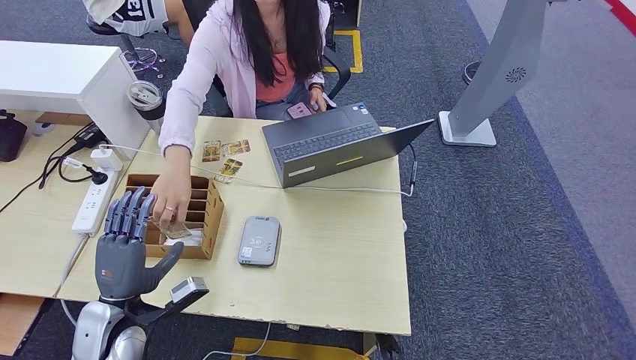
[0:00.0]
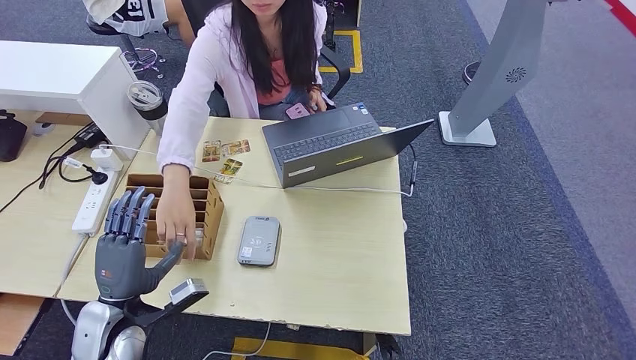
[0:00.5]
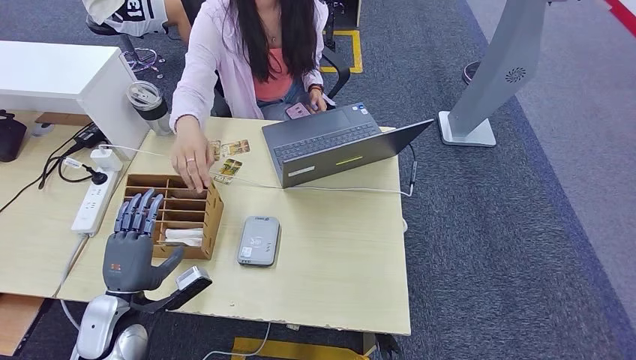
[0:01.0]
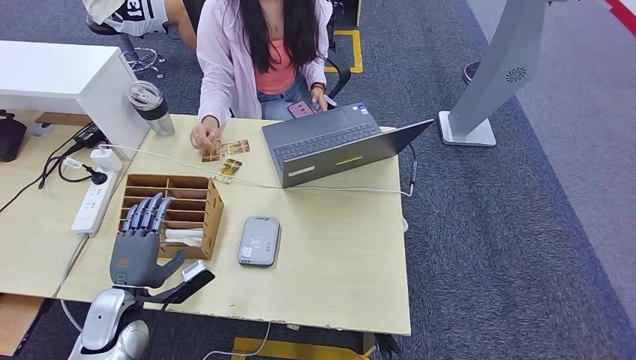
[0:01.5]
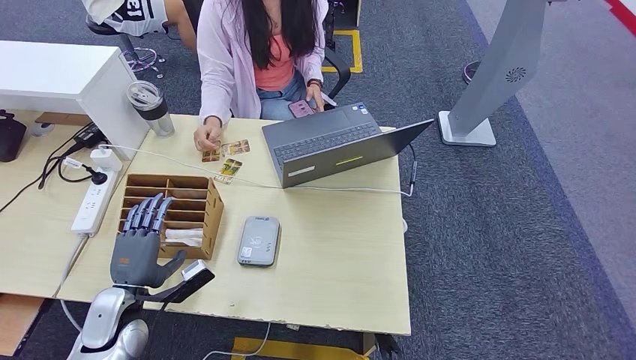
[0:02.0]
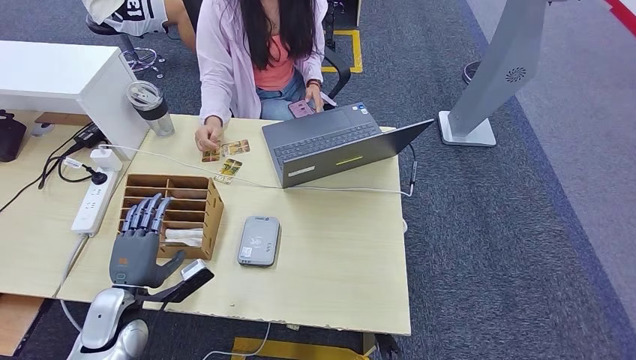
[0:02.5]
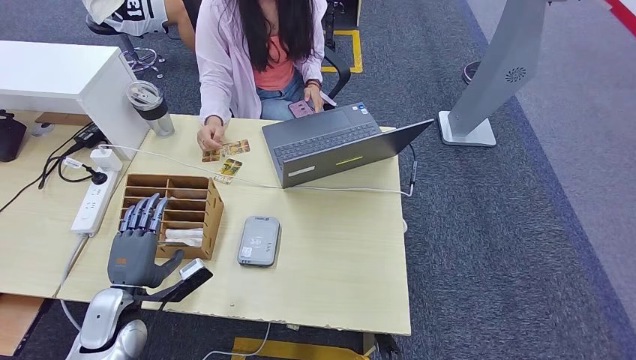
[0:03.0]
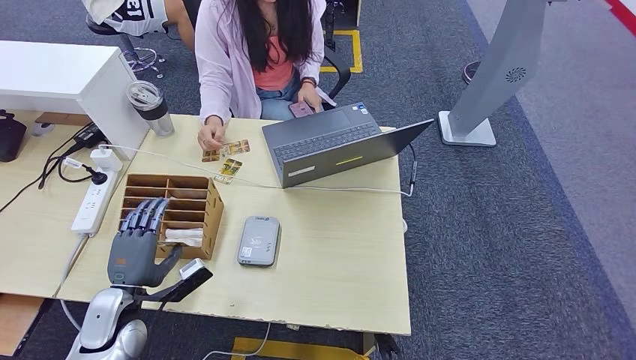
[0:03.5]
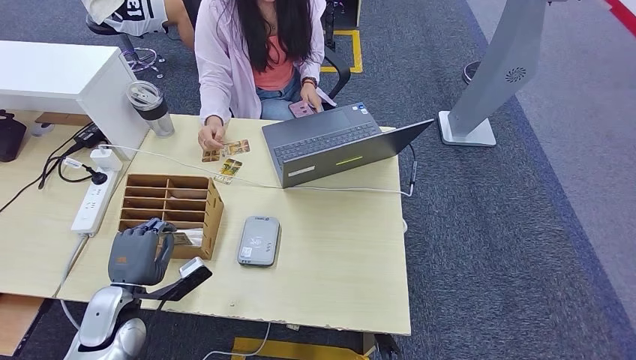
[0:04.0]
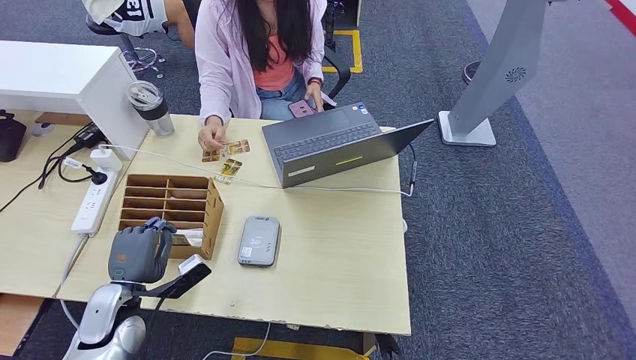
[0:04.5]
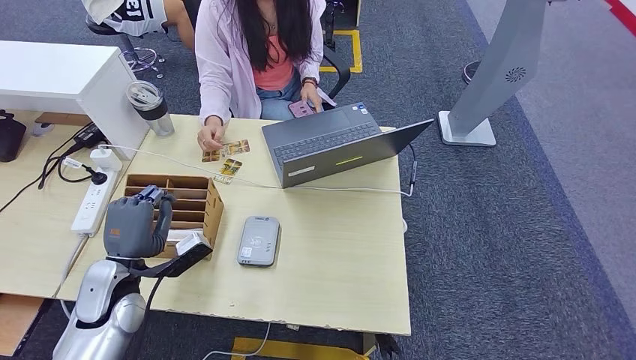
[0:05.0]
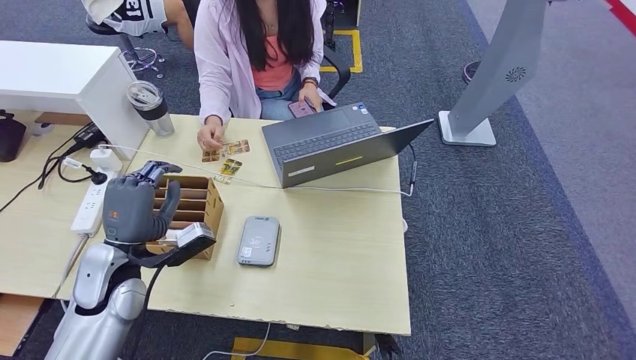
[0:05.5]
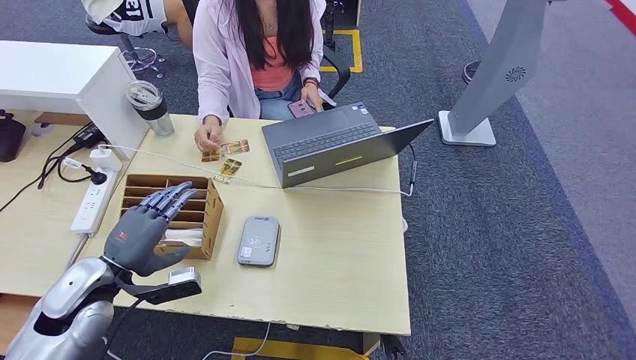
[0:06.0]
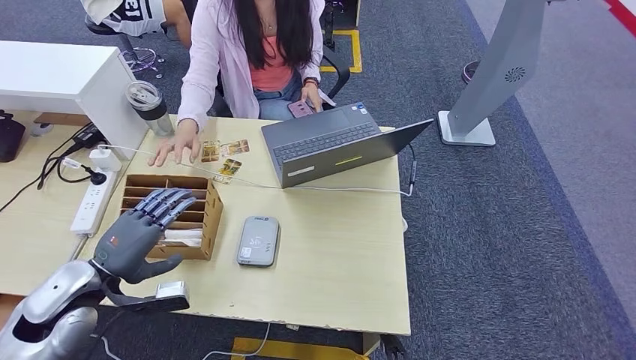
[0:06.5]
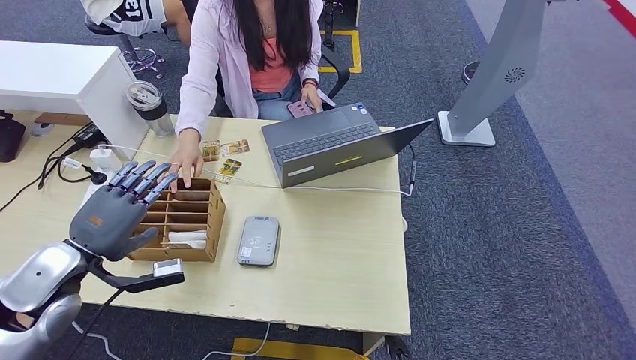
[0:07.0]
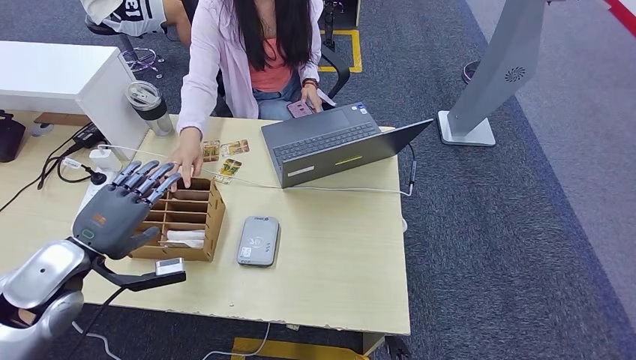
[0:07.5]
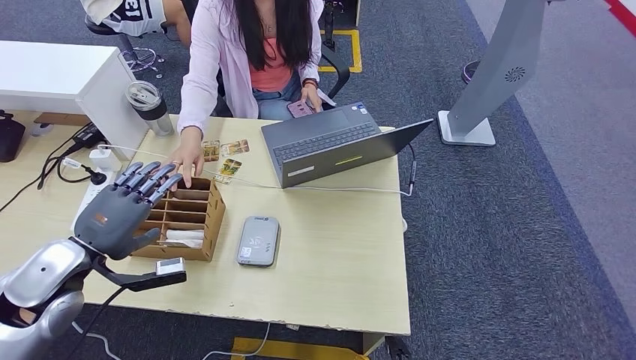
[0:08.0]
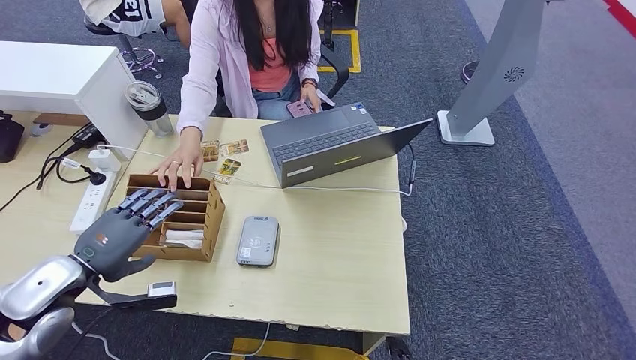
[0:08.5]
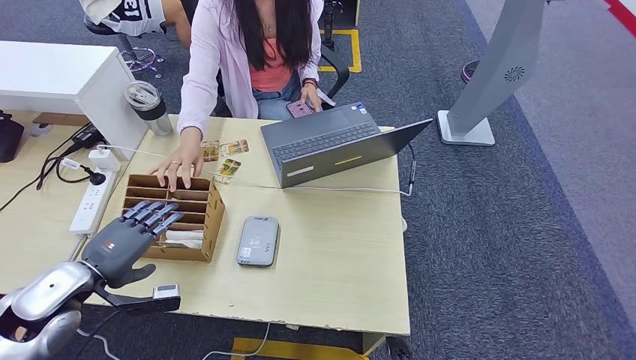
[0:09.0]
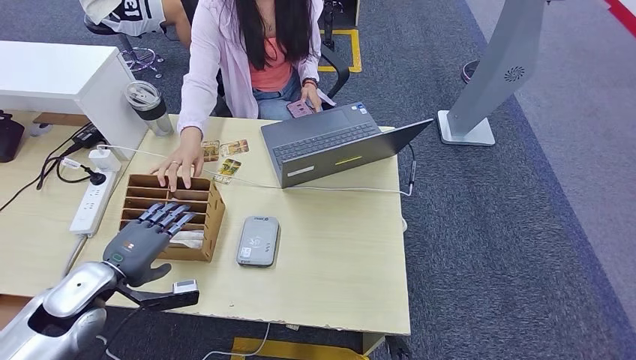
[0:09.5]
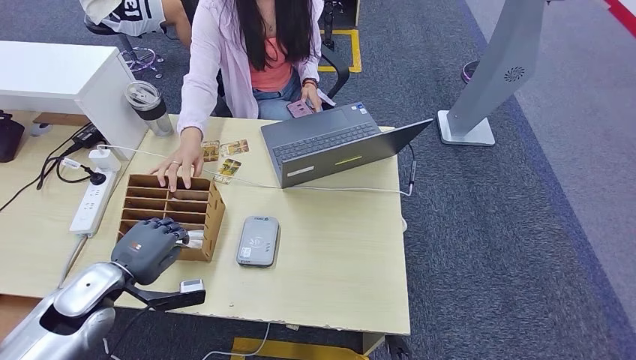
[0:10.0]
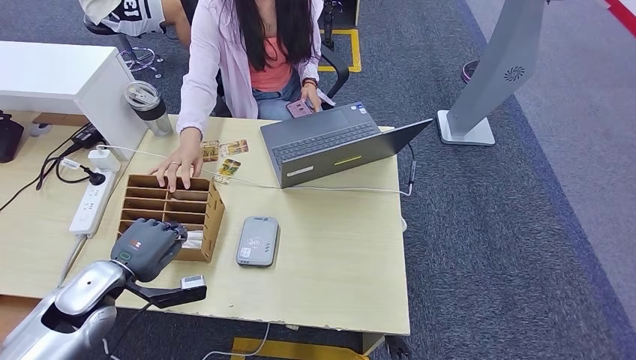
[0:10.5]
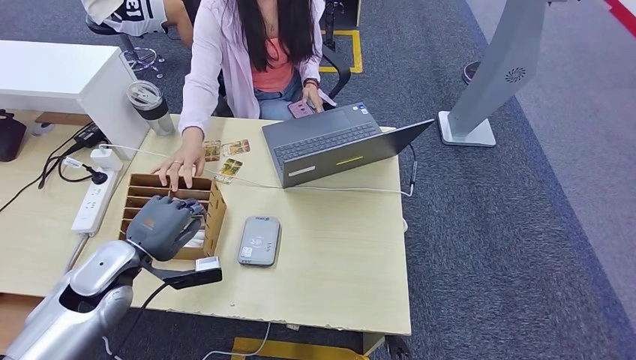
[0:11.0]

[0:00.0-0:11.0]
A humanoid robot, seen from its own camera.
0:02.0 to 0:03.5: Both hands stay about where they are.
0:03.5 to 0:05.5: The left hand moves upward, some 10 cm.
0:05.5 to 0:07.5: The left hand heads to the left, covering roughly 5 cm.
0:07.5 to 0:09.0: The left hand shifts by roughly 5 cm.
0:09.0 to 0:11.0: The left hand goes about 5 cm to the right.

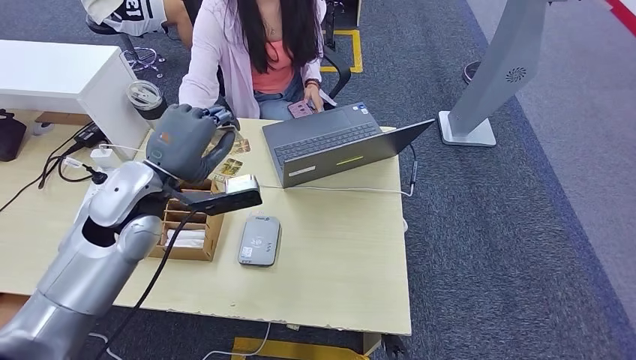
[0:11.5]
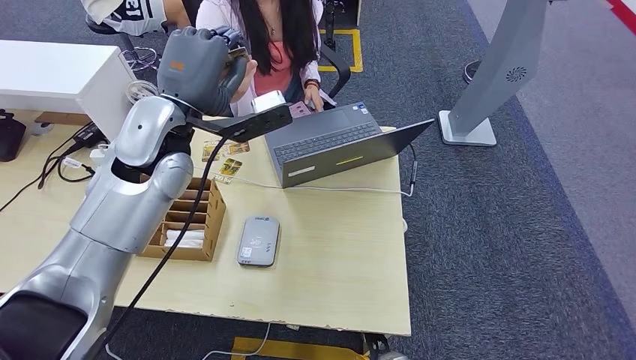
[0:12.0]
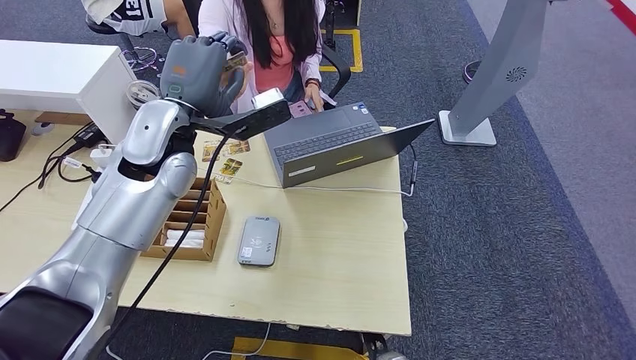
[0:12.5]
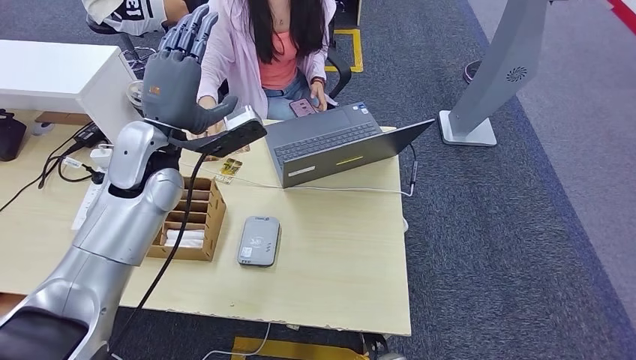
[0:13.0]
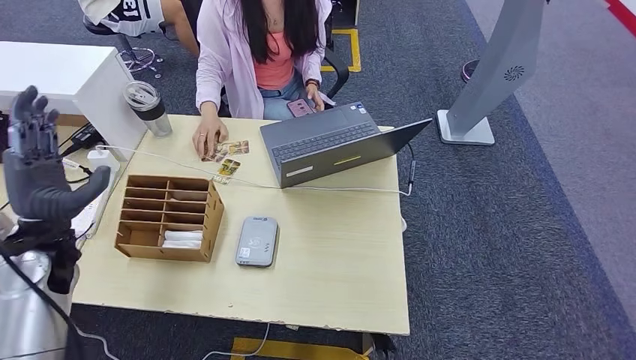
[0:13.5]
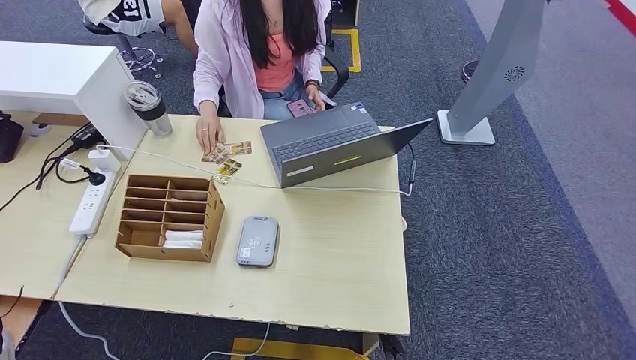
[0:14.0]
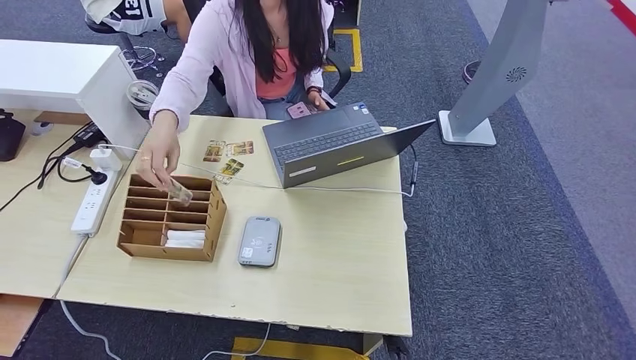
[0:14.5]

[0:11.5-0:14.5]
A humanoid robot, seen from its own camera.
Step, 0:12.0 to 0:14.5: Hand the room key to the person.
0:13.0 to 0:14.5: The left hand is displaced downward, to the left and backward by about 60 cm. Meanwhile the right hand moves roughly 5 cm.
